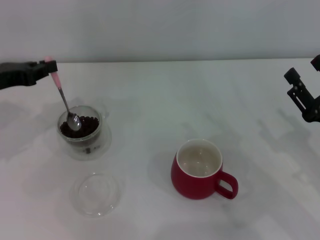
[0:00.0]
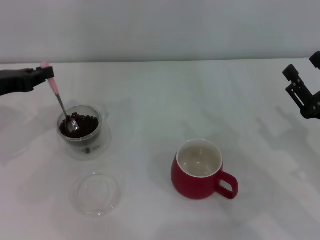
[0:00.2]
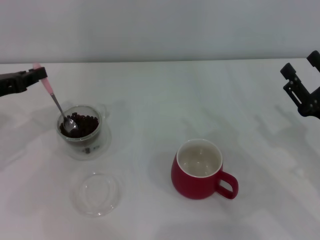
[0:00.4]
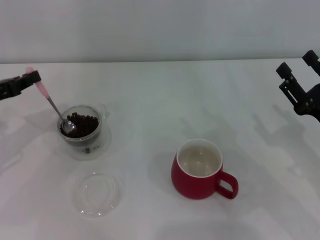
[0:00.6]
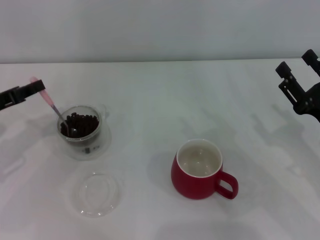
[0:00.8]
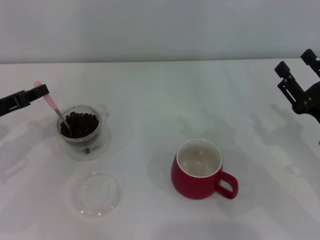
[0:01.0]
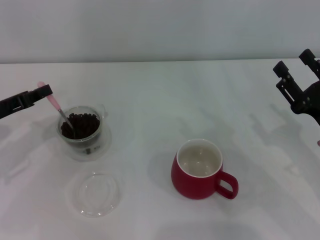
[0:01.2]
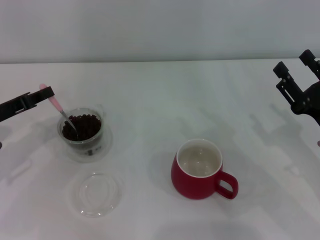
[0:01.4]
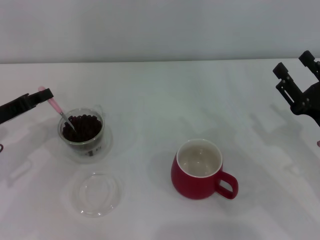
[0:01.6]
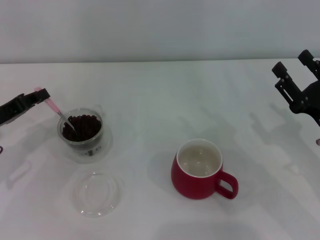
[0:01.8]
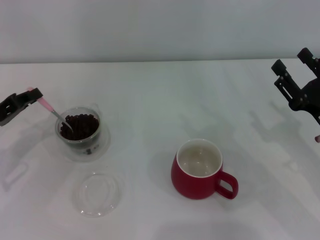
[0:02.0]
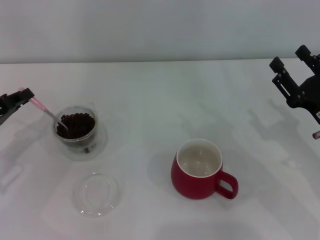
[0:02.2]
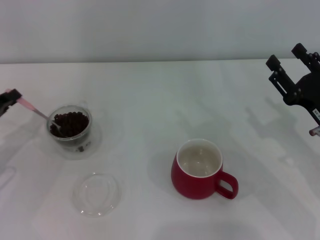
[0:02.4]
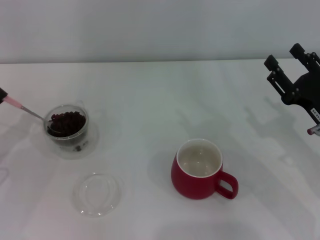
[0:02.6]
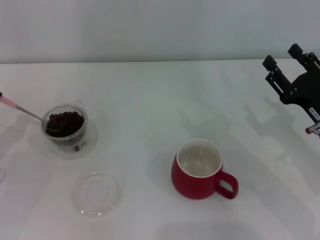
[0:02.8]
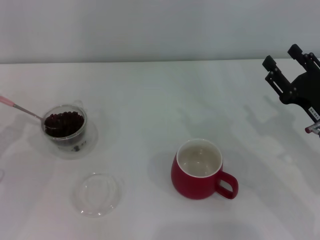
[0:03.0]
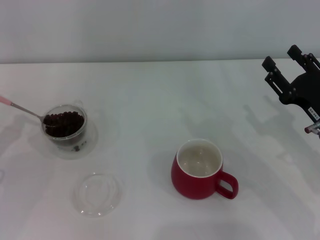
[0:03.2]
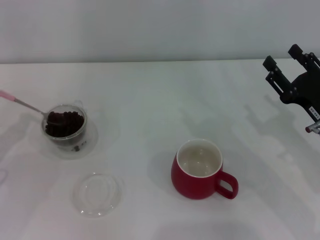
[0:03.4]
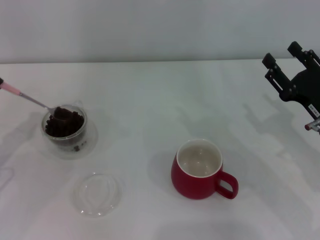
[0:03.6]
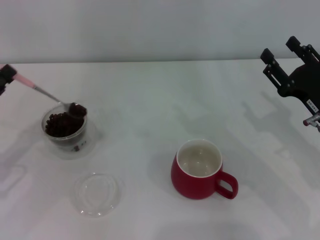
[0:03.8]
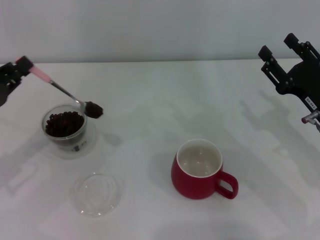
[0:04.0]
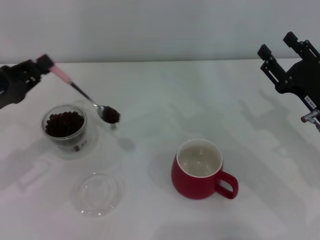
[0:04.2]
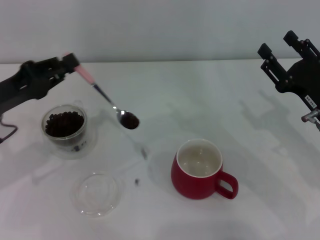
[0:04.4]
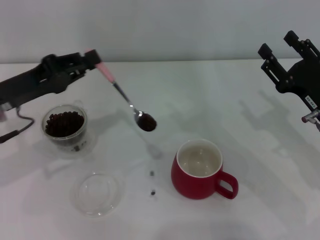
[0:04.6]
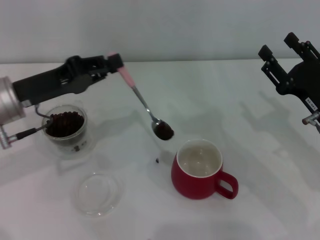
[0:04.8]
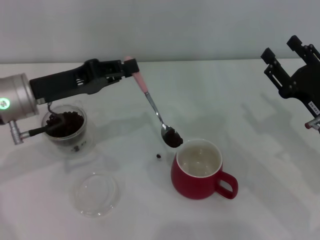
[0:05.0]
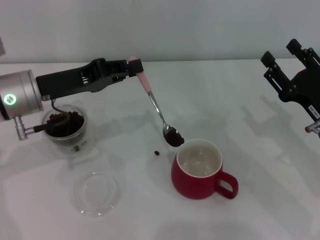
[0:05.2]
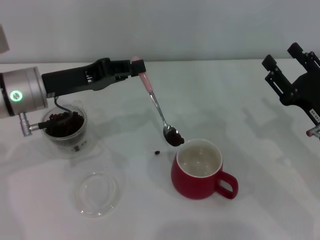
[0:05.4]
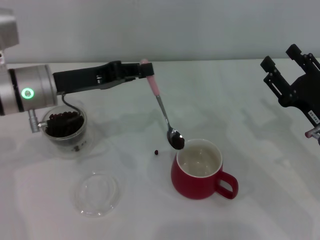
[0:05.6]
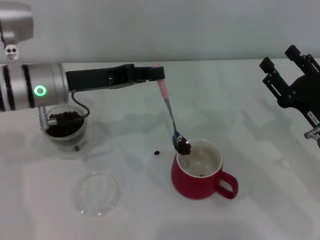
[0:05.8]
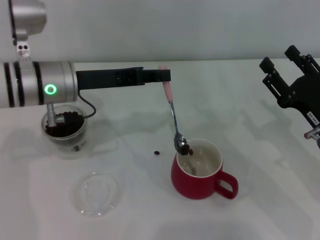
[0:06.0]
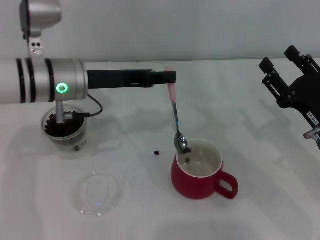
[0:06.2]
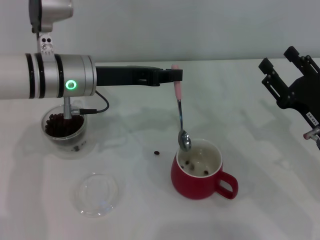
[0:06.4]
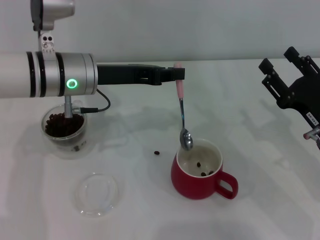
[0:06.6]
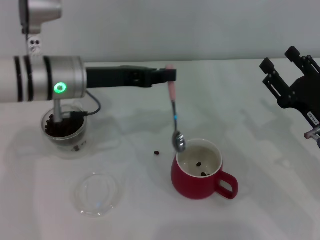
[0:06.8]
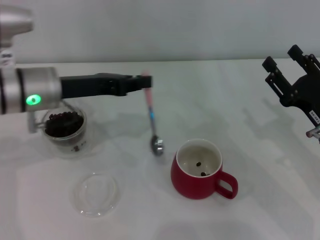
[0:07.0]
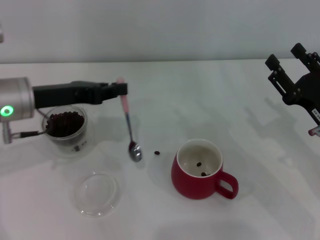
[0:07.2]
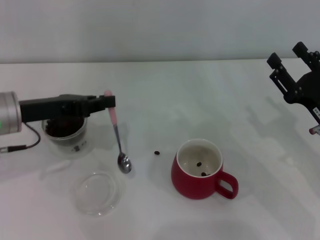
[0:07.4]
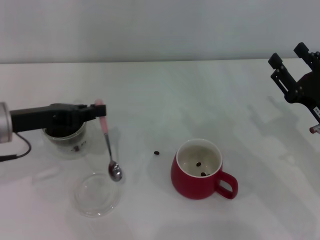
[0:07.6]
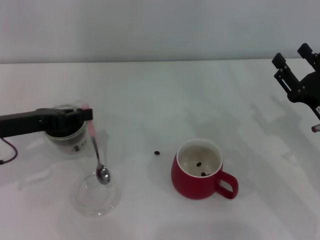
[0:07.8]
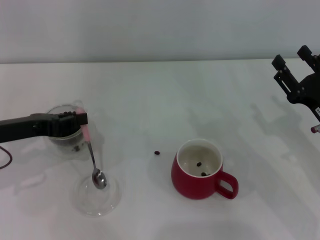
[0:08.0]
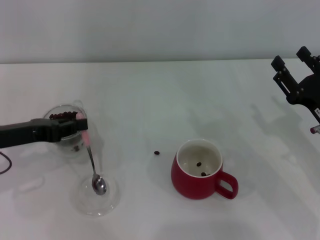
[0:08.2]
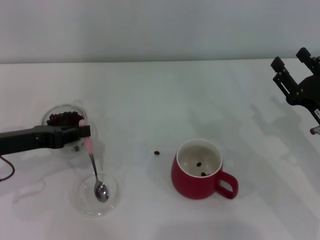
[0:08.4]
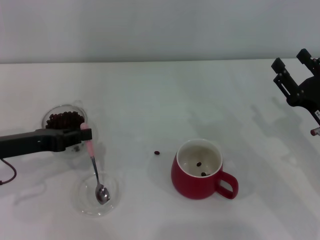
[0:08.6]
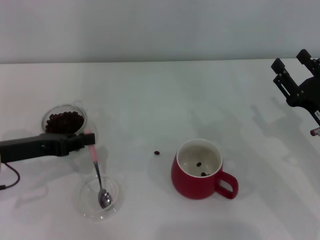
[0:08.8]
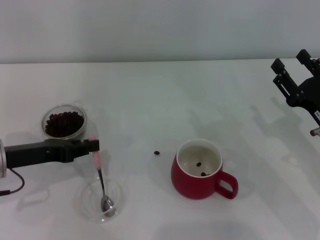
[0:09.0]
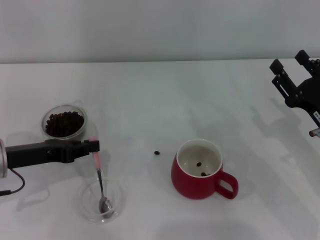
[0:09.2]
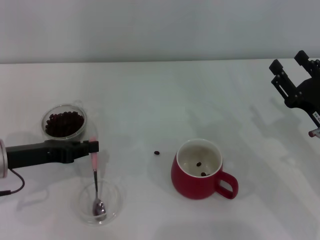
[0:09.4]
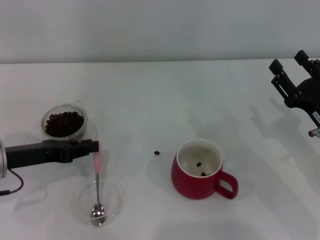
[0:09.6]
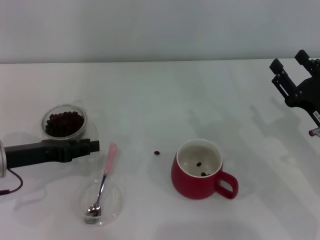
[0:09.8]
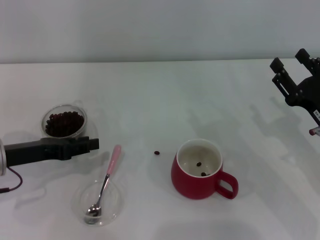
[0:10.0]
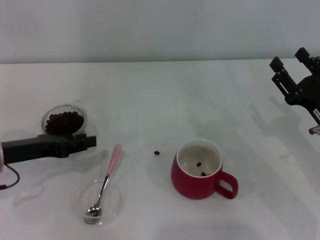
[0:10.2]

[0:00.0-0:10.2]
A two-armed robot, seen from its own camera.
Task of the whole recording: Use a pink spoon to take out the coffee beans from the glass and pour them into the red cup.
Step, 0:00.0 to 0:06.6: Scoop a spoonful of beans into the cup with the right gripper.
0:00.0 to 0:01.4: The left gripper shifts approximately 5 cm downward.
0:01.4 to 0:03.0: The left gripper ends up roughly 5 cm from where it was.
0:03.0 to 0:04.4: The left gripper shifts some 10 cm to the right and upward.
0:04.4 to 0:05.8: The left gripper heads to the right and forward, covering approximately 10 cm.
0:05.8 to 0:07.2: There are only small adjustments of the grippers.
0:07.2 to 0:08.8: The left gripper goes roughly 5 cm to the left and downward.
0:08.8 to 0:10.2: The left gripper opens its fingers.

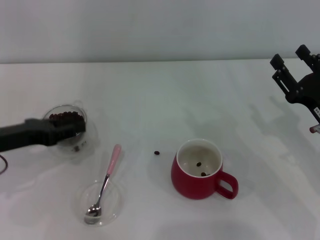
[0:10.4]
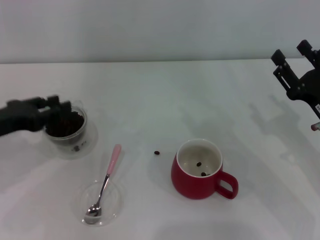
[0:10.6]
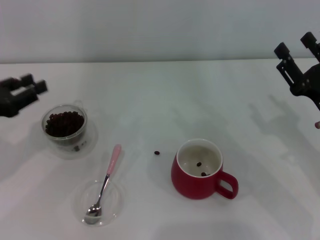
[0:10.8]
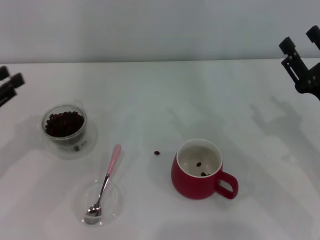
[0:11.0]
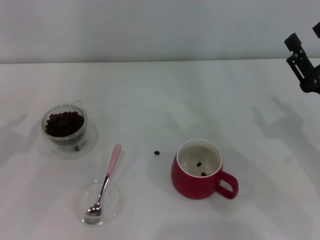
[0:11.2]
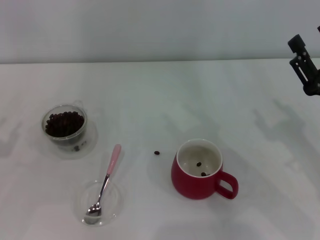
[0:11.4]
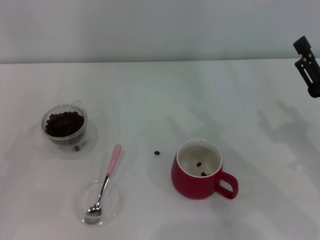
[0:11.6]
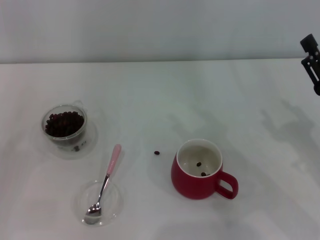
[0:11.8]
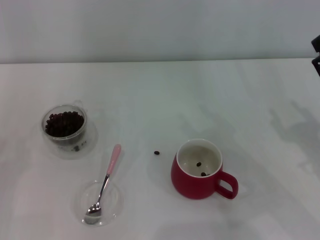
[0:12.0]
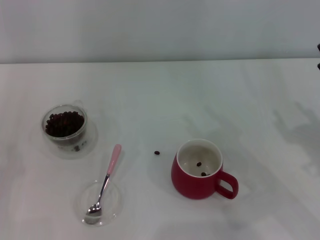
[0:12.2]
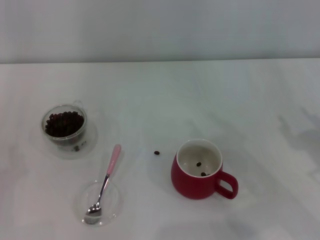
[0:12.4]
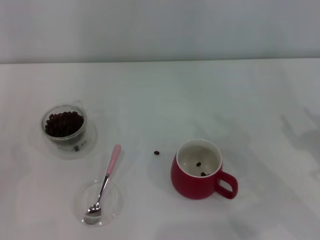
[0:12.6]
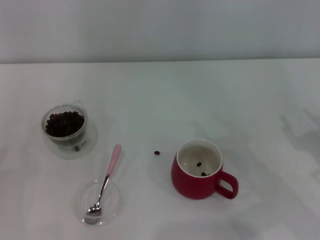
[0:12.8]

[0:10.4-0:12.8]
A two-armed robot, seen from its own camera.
Task of the whole recording: Use a pink spoon to take out the coffee beans from the glass and pour them into the red cup.
0:10.4 to 0:11.6: The left gripper goes about 15 cm to the left and backward.

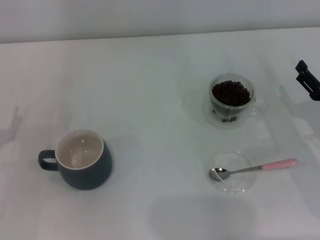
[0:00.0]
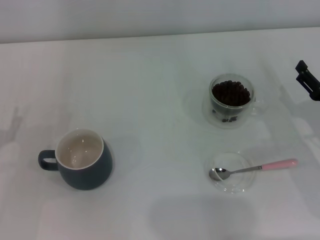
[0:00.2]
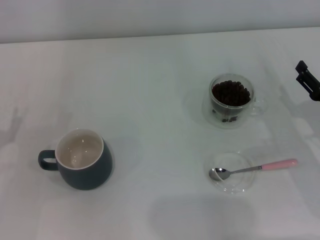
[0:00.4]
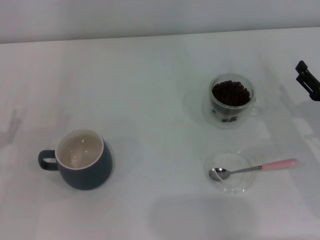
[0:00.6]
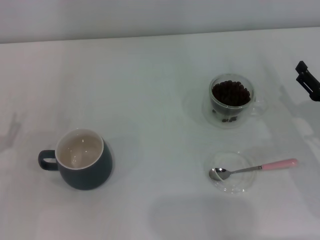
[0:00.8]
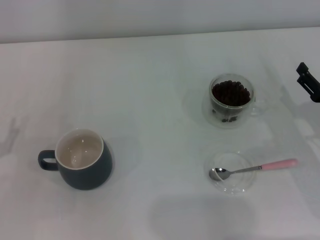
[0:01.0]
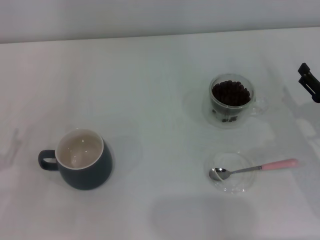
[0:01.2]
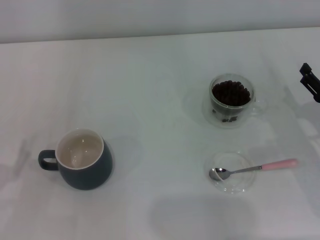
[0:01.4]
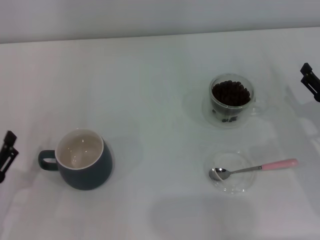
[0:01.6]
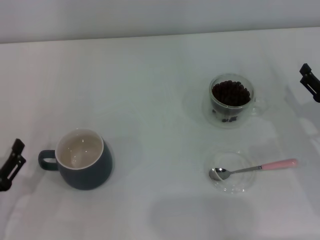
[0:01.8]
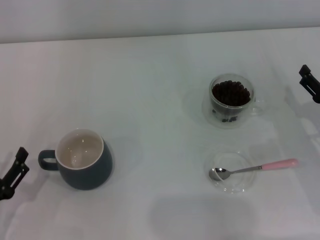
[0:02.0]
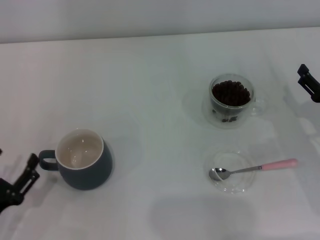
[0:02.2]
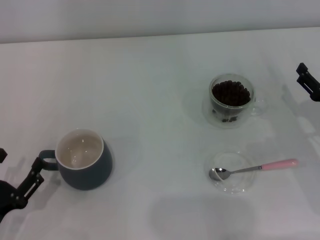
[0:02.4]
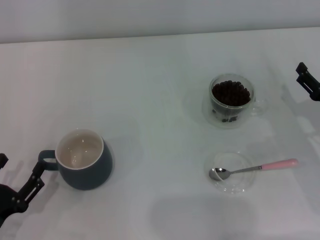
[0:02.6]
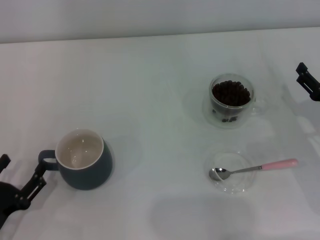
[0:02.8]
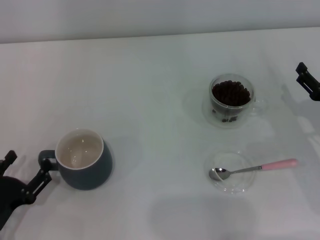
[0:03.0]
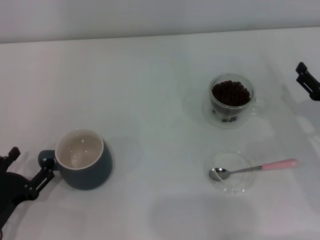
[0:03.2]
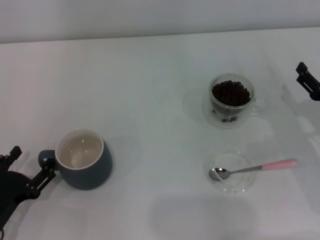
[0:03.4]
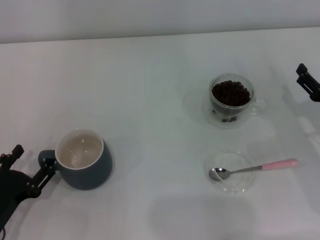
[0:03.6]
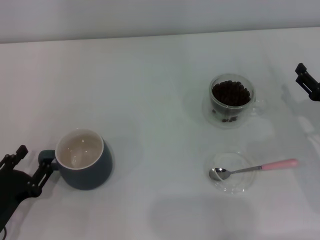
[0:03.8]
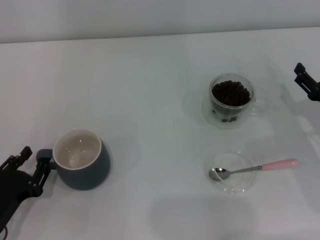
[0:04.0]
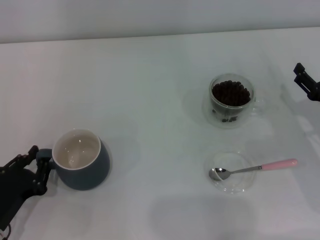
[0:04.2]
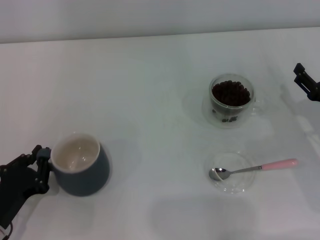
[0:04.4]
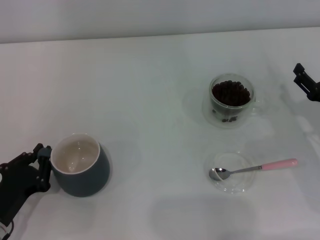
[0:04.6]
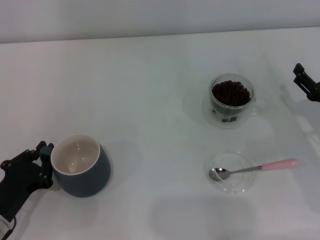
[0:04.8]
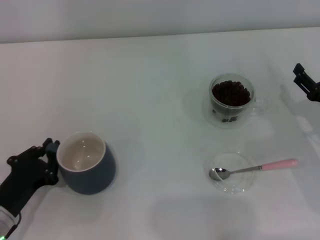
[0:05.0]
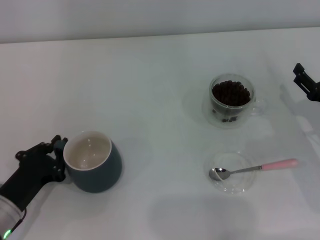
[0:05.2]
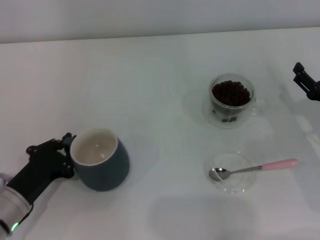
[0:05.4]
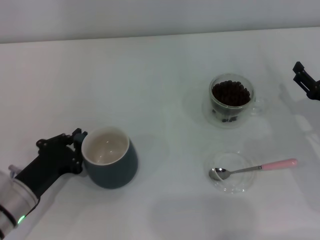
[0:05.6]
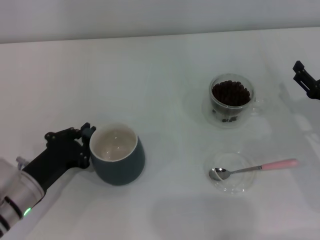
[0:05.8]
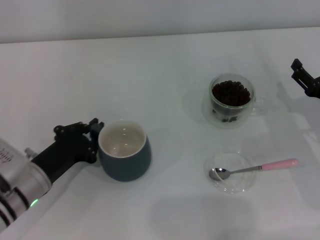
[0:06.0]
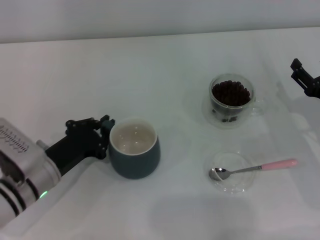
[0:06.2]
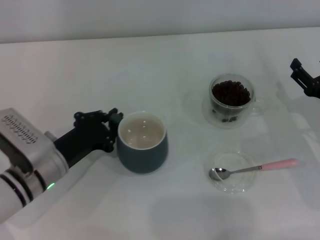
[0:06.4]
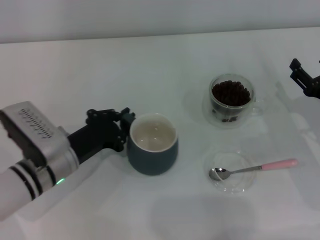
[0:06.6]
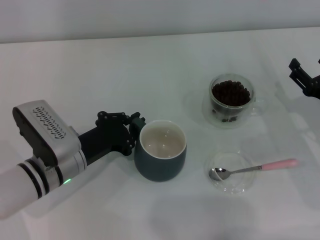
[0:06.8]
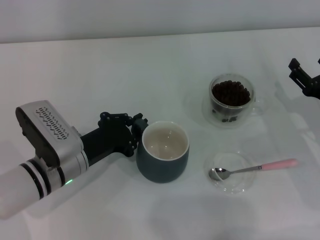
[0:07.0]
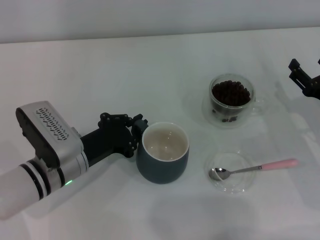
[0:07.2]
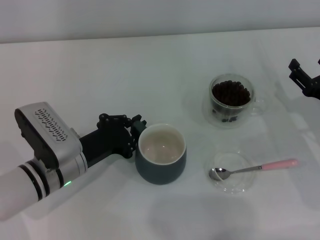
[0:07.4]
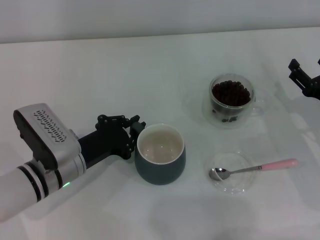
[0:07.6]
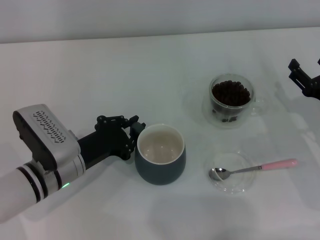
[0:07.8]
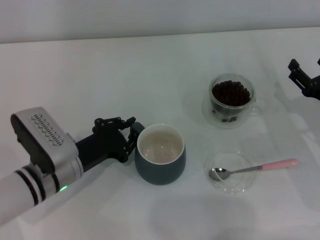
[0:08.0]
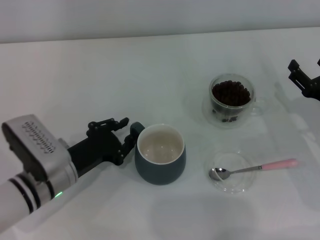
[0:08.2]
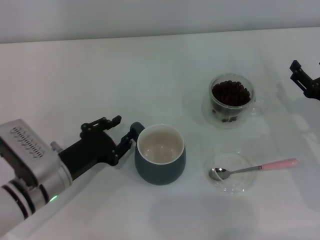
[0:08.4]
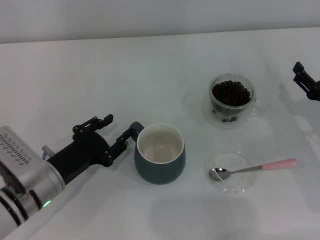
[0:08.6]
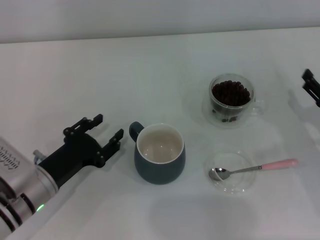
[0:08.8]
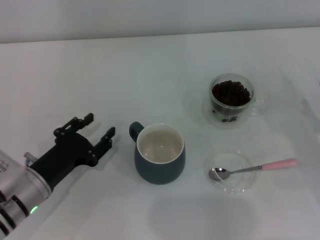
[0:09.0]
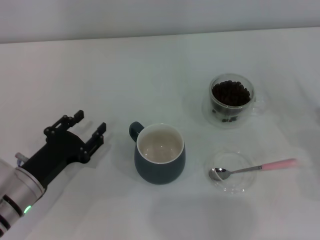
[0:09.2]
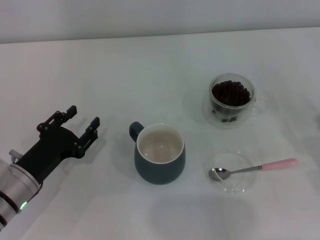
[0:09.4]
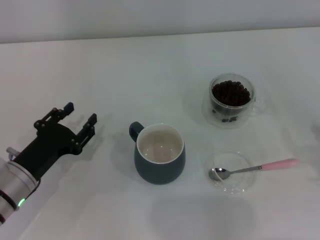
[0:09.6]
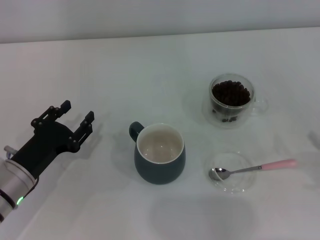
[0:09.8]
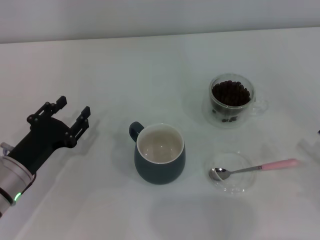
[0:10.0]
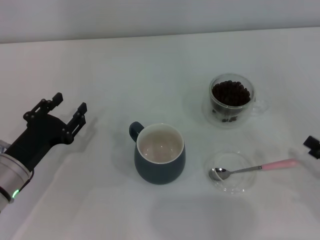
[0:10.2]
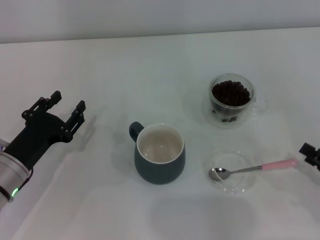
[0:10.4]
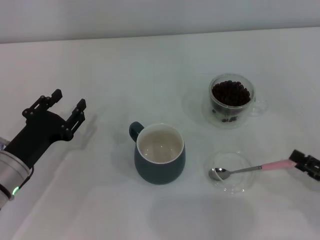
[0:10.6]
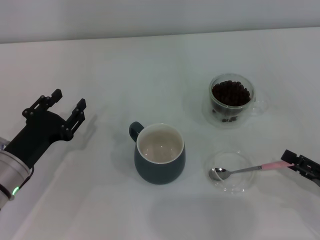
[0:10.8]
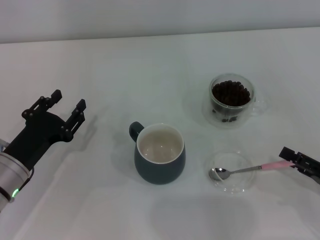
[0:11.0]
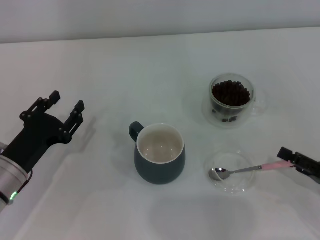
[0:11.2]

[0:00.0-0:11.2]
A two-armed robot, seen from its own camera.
Task of the whole recording: Use a pink spoon to take out the coffee beans from the glass and pour them into the gray cup.
Step, 0:00.0 to 0:08.6: Move the cup to the center of view with the left gripper.
0:00.0 to 0:01.6: The left gripper travels backward by some 10 cm.
0:01.6 to 0:03.2: The grippers stay close to where they were, moving slightly.
0:03.2 to 0:04.8: The left gripper closes.
0:04.8 to 0:06.4: The left gripper is displaced forward and to the right by approximately 10 cm.
0:06.4 to 0:08.0: There are only small adjustments of the grippers.
0:08.0 to 0:09.6: The left gripper travels to the left by roughly 5 cm, and opens up, while the right gripper goes some 10 cm backward and to the right.
